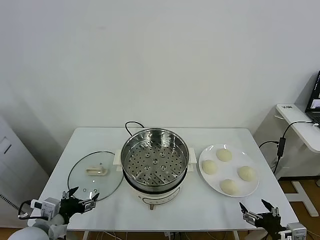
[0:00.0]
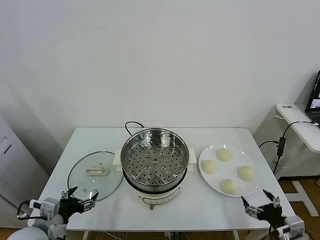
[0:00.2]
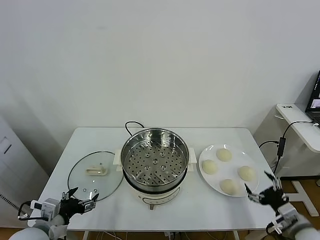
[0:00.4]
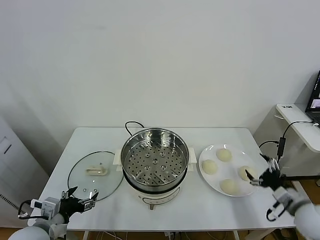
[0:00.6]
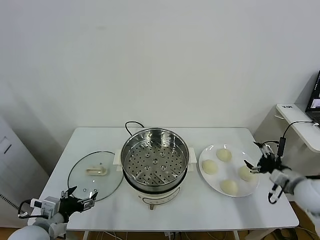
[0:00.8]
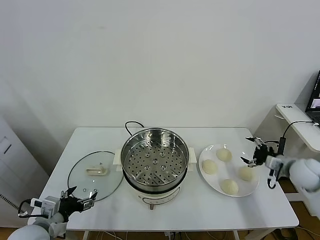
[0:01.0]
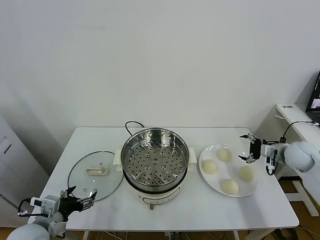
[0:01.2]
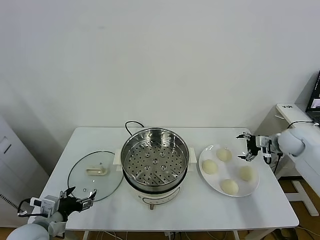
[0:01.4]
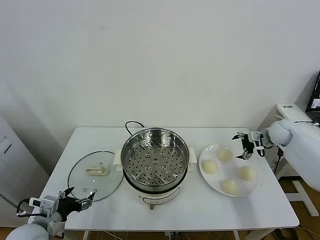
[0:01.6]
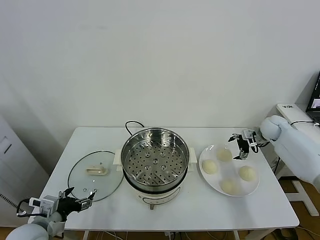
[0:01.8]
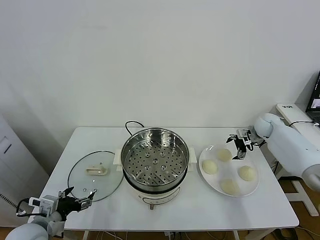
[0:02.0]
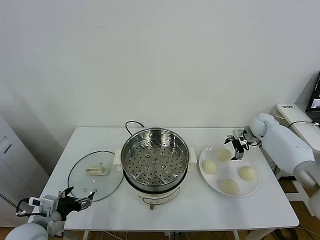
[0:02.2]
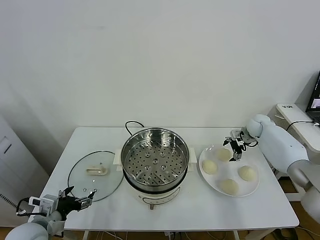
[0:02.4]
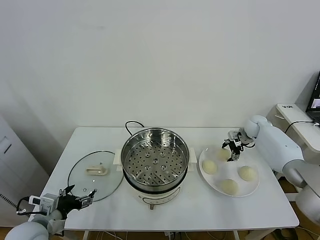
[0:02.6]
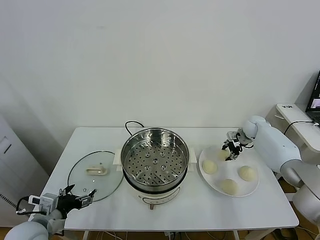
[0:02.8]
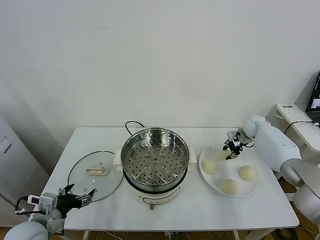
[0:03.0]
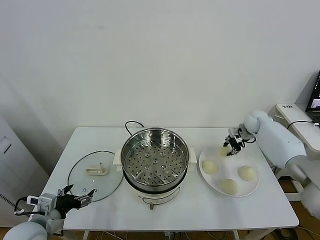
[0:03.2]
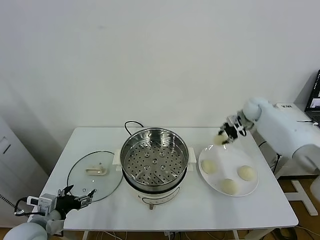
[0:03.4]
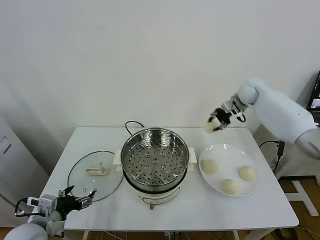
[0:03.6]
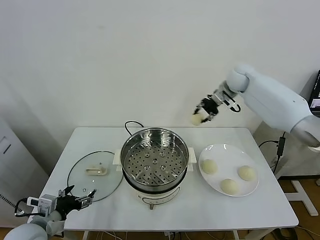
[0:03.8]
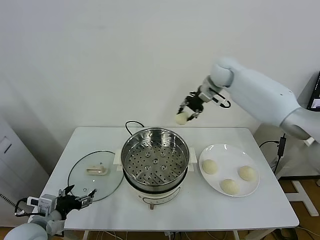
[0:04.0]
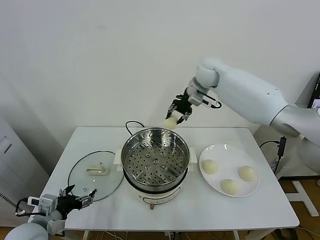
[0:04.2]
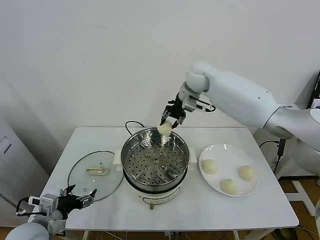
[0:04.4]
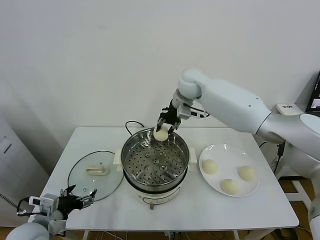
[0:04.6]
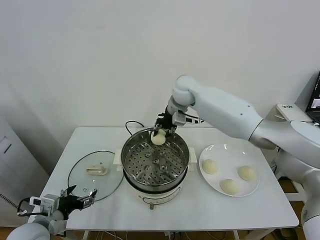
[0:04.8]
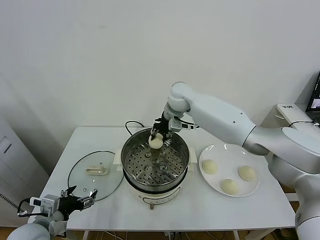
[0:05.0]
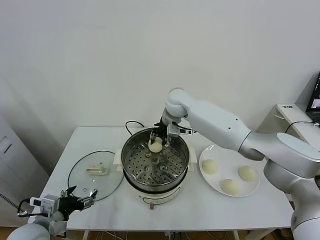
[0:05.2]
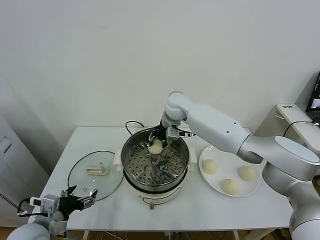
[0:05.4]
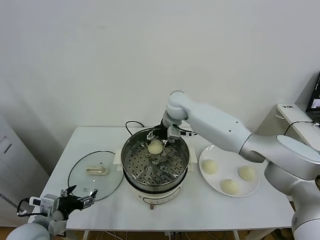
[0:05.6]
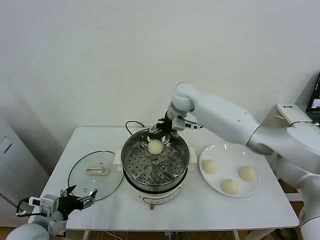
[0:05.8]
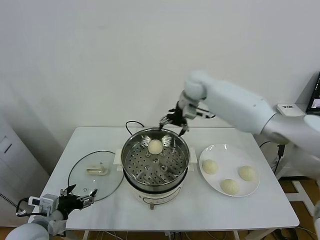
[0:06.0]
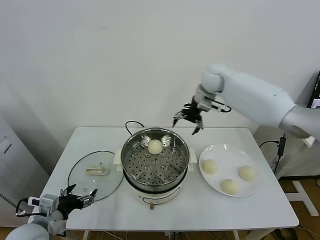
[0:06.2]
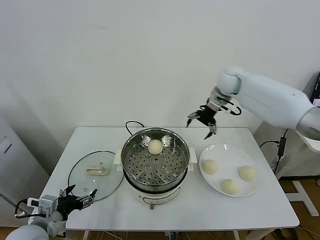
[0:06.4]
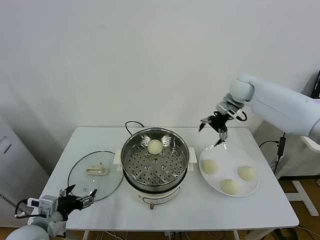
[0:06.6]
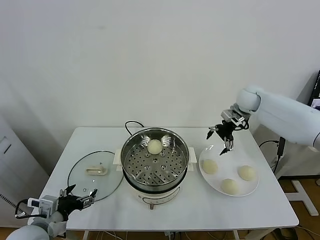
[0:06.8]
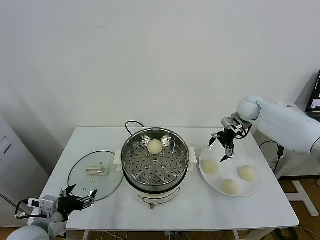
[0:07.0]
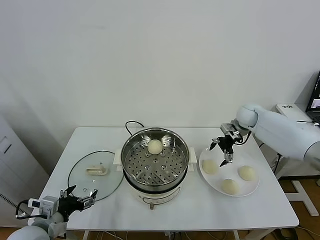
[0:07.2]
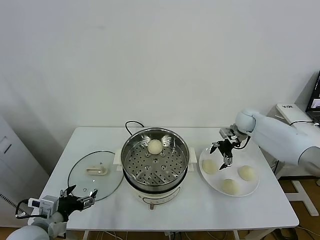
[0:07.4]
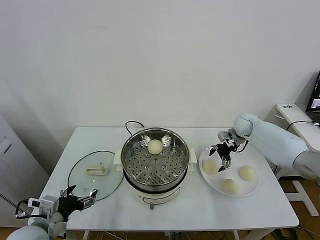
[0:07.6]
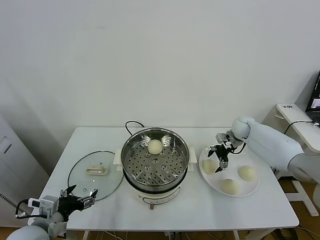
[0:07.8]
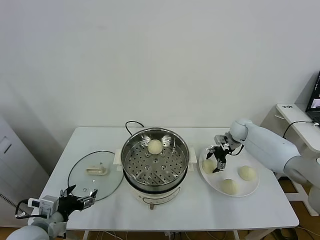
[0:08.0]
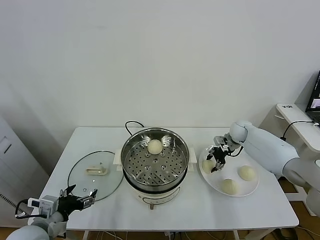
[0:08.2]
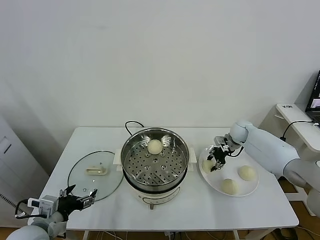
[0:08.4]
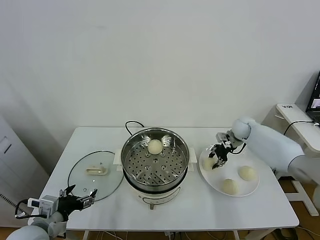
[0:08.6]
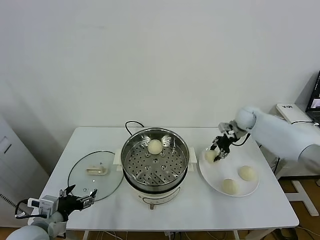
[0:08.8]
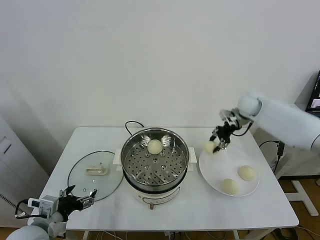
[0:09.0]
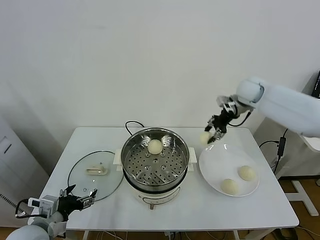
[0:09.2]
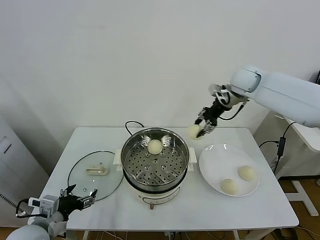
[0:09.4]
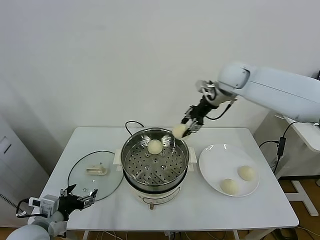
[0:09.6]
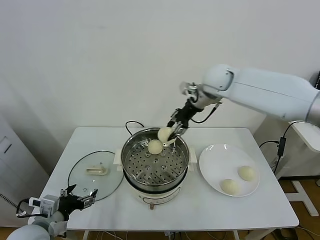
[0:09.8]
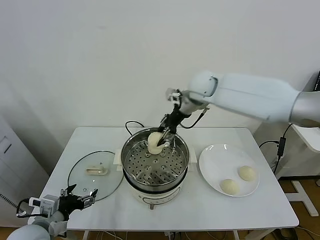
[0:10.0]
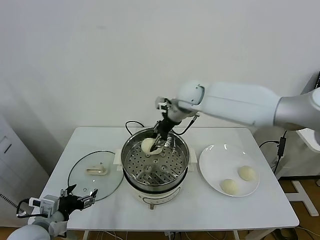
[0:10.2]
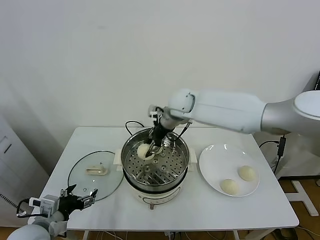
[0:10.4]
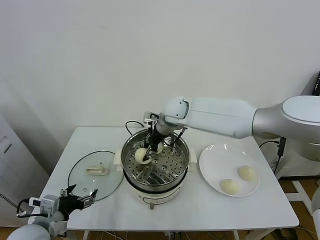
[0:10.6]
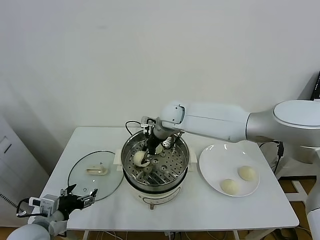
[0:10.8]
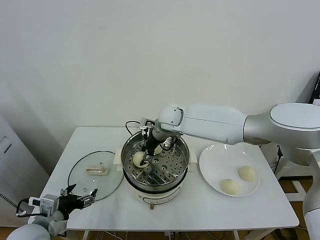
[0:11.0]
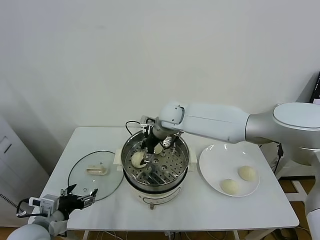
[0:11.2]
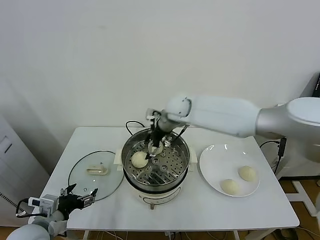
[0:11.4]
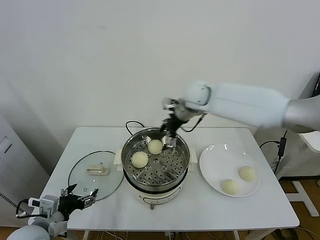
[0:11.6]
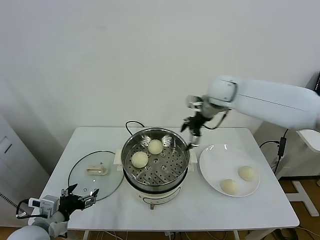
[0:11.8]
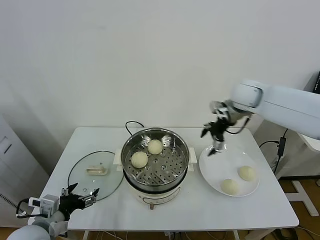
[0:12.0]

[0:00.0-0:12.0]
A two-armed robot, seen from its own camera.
Task of the whole recording: take steamed baozi put them in steamer.
Step, 0.0 to 2.6 s: Grasp the baozi in the plate with right gripper.
Step, 2.8 to 5.6 s: Place the baozi on the steamer with right gripper.
Step, 5.8 to 8.2 s: Grasp the baozi in the plate with right gripper.
Step, 8.4 to 11.2 s: Place the baozi on the steamer with right gripper.
1.6 to 3.0 s: The right gripper goes about 5 cm forward, and closes up.
3.0 to 4.4 s: The right gripper travels to the left and upward by approximately 35 cm.
4.4 to 6.0 s: The right gripper reaches some 10 cm downward, then returns, and opens up.
6.0 to 7.6 s: The right gripper moves to the right and downward, some 30 cm.
7.6 to 9.0 s: The right gripper travels upward by approximately 15 cm, and closes its fingers.
9.0 to 10.4 s: The right gripper travels to the left by roughly 25 cm.
10.4 to 12.0 s: The right gripper heads to the right, covering about 25 cm, and opens its fingers.

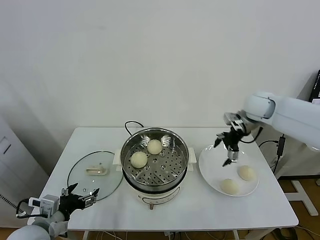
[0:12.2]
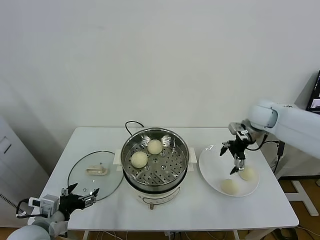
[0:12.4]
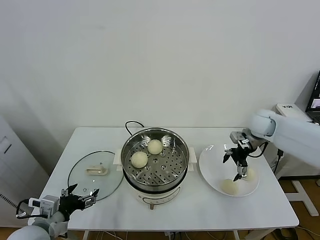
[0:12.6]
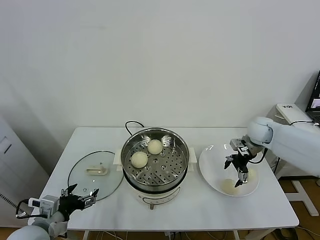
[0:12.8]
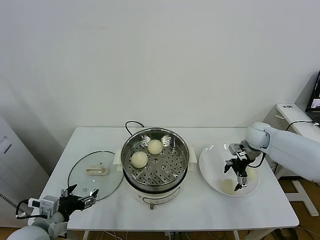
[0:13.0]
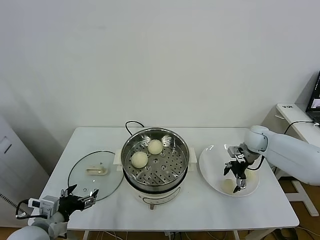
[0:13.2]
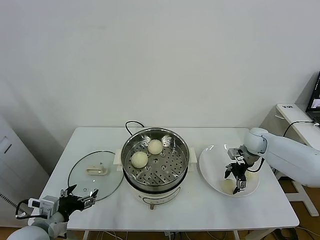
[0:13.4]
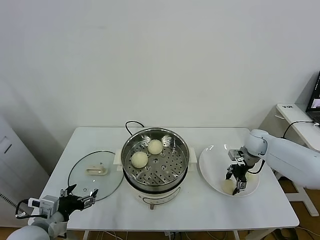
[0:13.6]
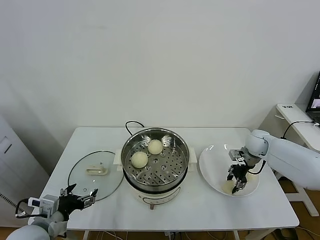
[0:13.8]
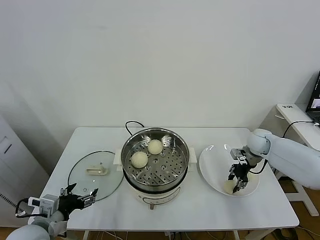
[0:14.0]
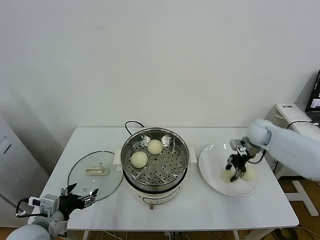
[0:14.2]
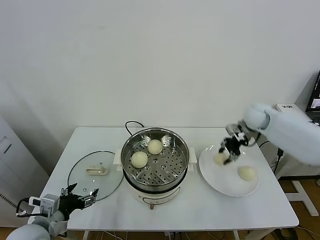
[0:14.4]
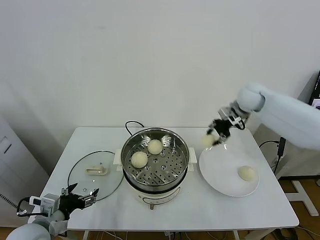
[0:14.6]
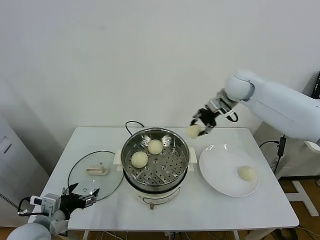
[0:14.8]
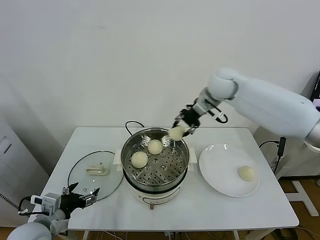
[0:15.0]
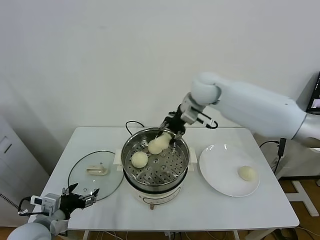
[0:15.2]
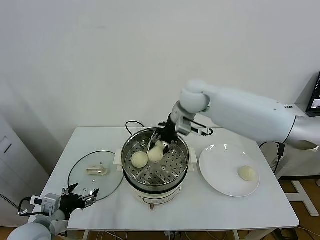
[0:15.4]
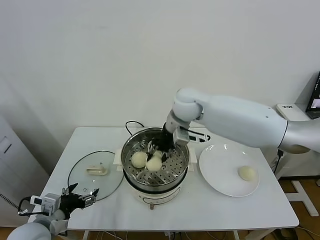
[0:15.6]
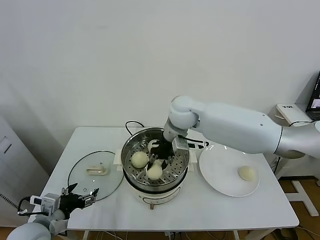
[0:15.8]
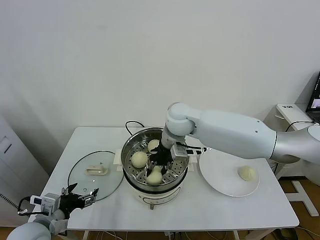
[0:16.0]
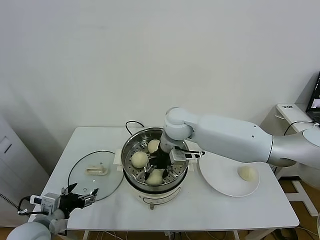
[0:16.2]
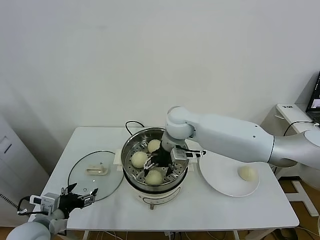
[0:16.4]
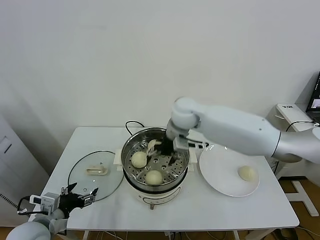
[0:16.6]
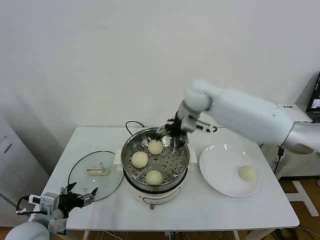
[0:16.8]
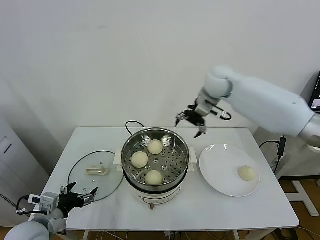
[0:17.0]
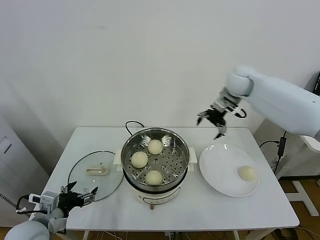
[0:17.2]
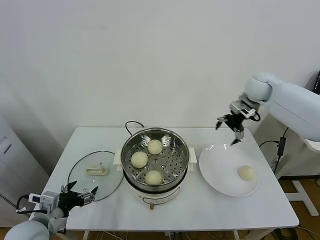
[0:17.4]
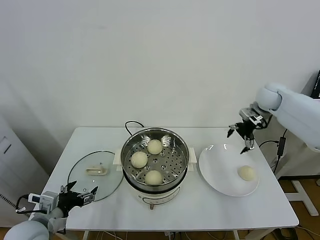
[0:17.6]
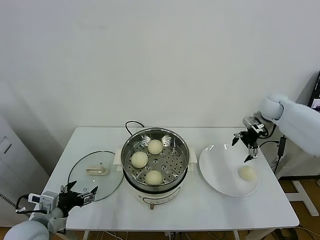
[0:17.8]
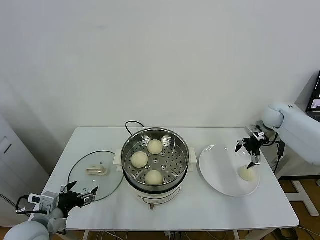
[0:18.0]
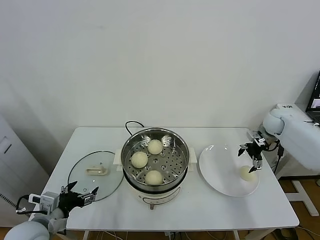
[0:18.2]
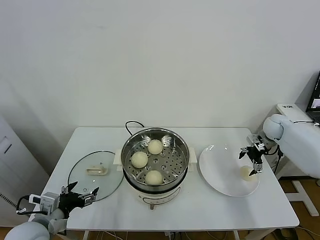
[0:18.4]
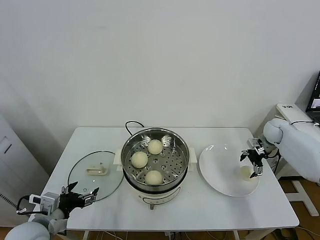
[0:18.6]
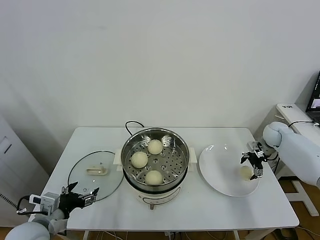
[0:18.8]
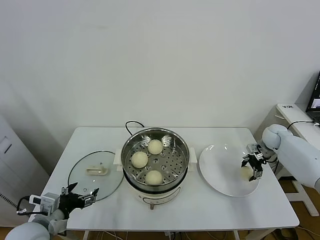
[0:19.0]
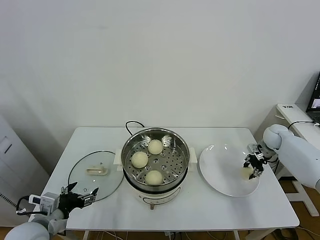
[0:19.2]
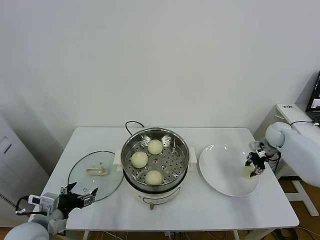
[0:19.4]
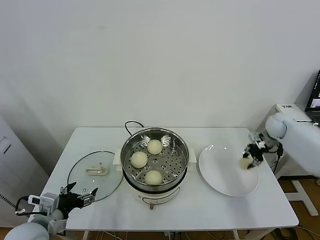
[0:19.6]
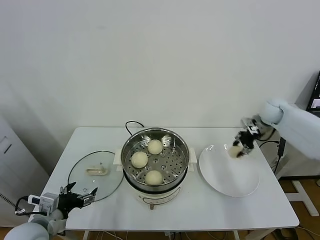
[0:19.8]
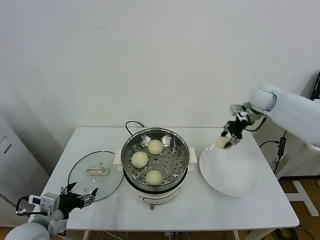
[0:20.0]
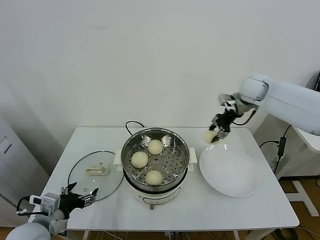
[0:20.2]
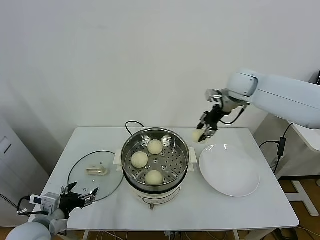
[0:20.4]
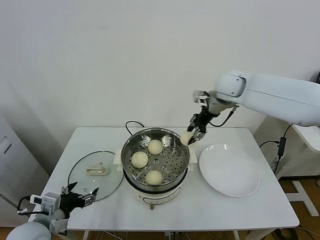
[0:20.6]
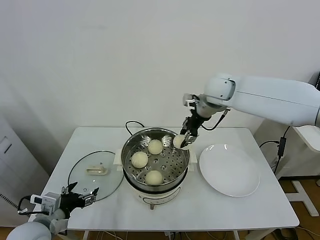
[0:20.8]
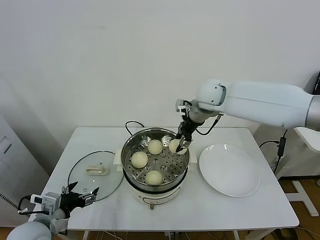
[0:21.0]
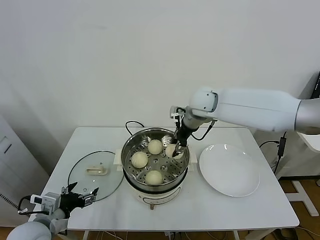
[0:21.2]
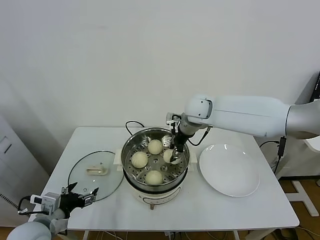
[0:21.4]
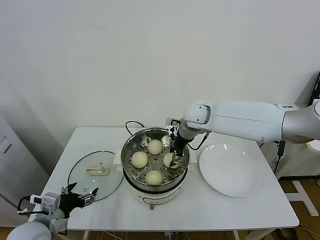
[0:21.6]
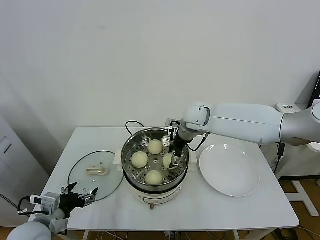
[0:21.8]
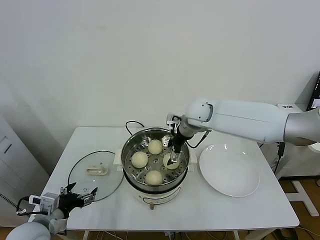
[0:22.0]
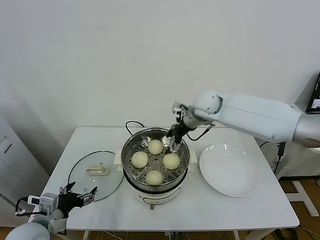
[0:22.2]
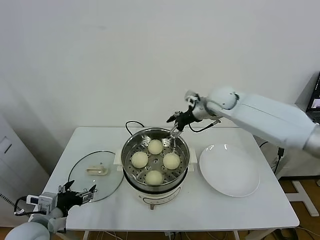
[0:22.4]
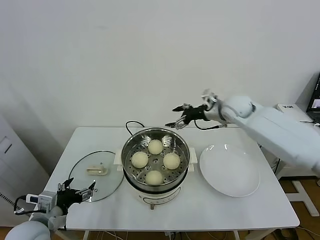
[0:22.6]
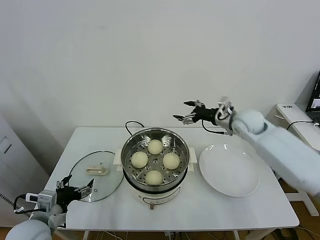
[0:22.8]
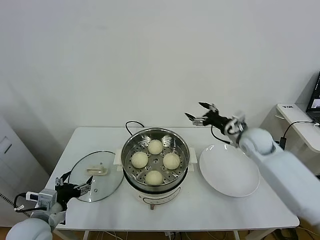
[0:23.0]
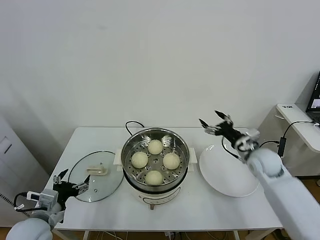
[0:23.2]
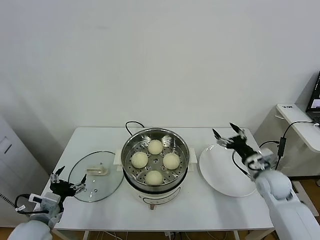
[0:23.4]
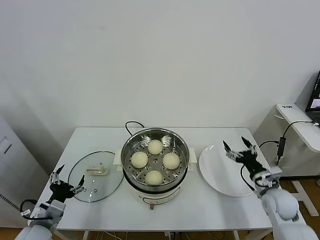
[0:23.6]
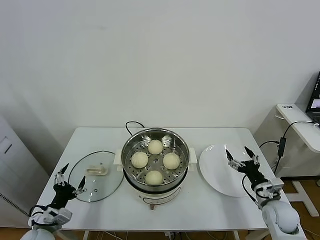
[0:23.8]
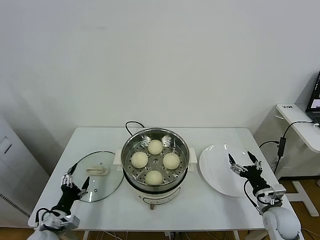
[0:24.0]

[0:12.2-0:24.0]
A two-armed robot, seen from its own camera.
Task of the whole recording: take steamed baozi put them in steamer.
Step, 12.2 to 13.6 s: Grasp the baozi in the plate with right gripper.
Step, 13.8 to 16.4 s: Place the baozi on the steamer with right gripper.
Step, 16.6 to 19.0 s: Grasp the baozi in the plate with right gripper.
Step, 19.2 to 22.2 s: Place the baozi on the steamer with right gripper.
12.2 to 13.6 s: The right gripper moves downward, about 15 cm, and closes.
13.6 to 15.2 s: The right gripper travels to the left and upward by some 35 cm, and closes its fingers.
15.2 to 16.6 s: The right gripper goes some 5 cm downward, and opens up.
16.6 to 18.2 s: The right gripper shifts about 35 cm to the right.
18.2 to 19.6 s: The right gripper closes its fingers.
19.6 to 21.0 s: The right gripper heads to the left and upward, covering about 35 cm.
21.0 to 22.6 s: The right gripper travels to the right and downward by approximately 10 cm, and opens its fingers.
22.6 to 24.0 s: The left gripper travels downward by about 10 cm, while the right gripper shifts roughly 40 cm backward, downward and to the right.
